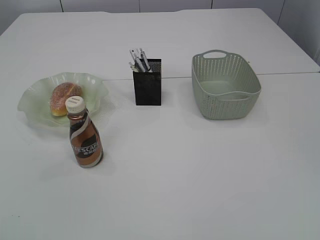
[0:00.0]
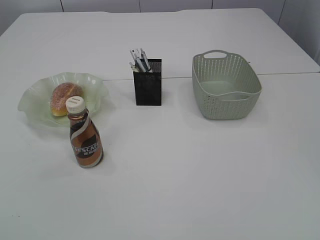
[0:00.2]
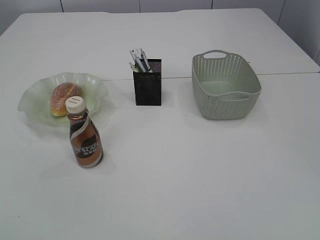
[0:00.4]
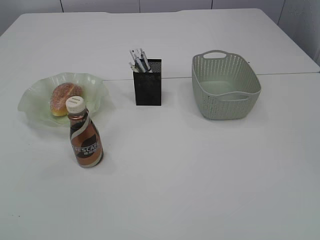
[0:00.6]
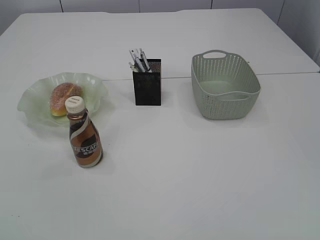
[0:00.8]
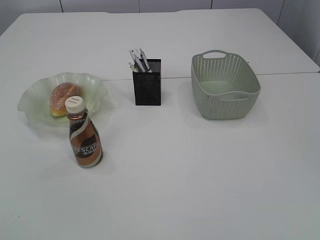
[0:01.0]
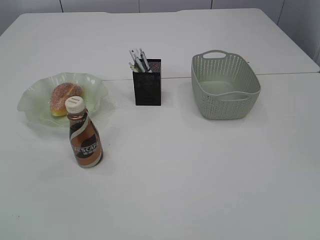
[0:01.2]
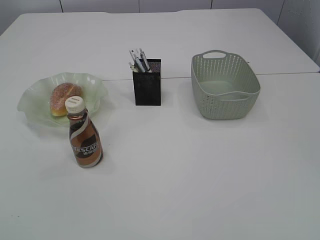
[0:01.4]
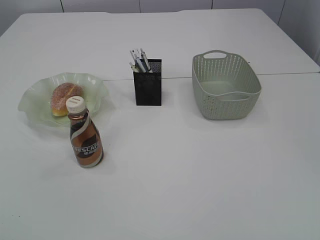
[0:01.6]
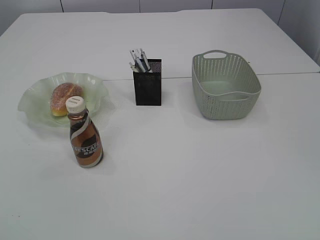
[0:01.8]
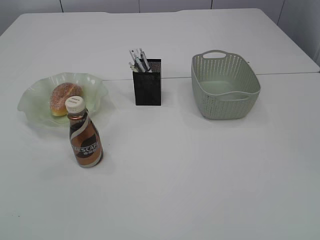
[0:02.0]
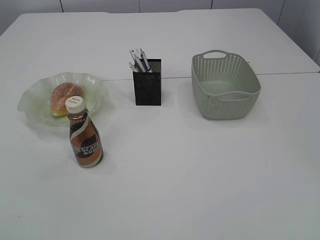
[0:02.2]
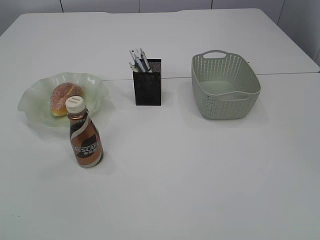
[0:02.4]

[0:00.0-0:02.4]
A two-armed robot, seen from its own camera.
0.0 to 1.2 s: Neither gripper changes place.

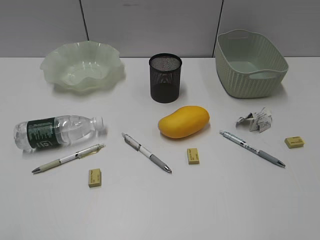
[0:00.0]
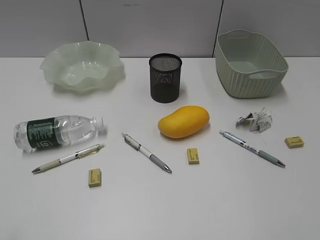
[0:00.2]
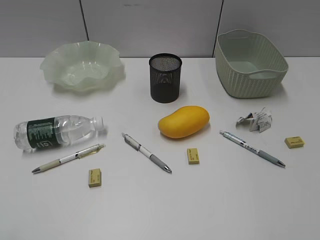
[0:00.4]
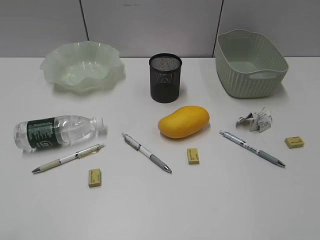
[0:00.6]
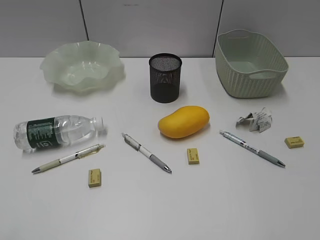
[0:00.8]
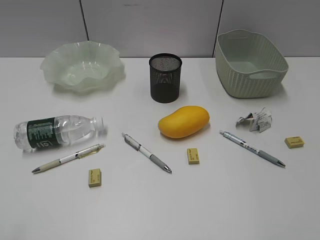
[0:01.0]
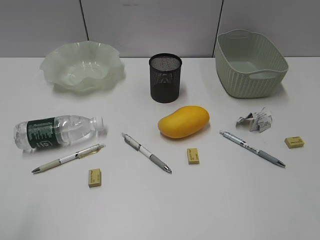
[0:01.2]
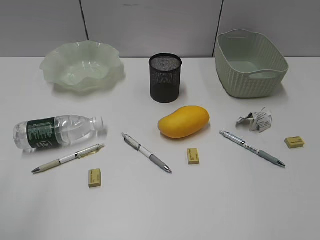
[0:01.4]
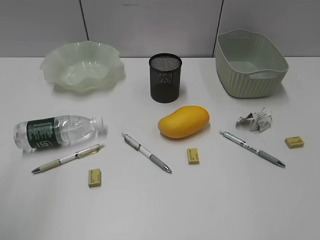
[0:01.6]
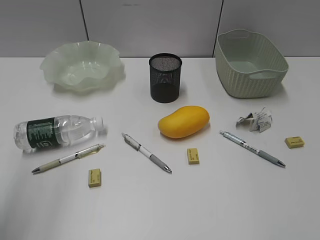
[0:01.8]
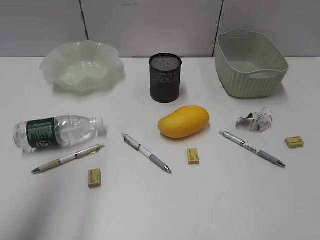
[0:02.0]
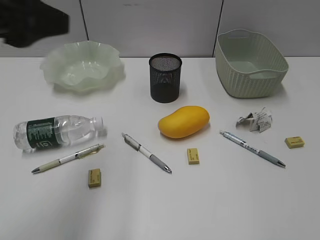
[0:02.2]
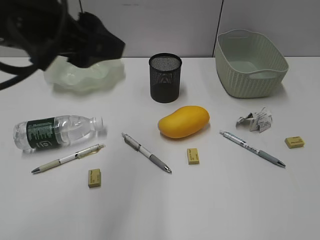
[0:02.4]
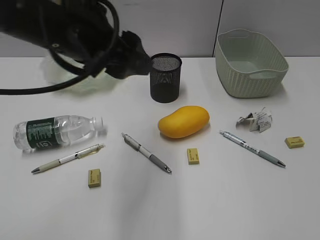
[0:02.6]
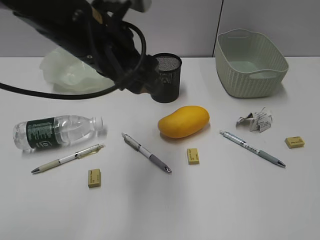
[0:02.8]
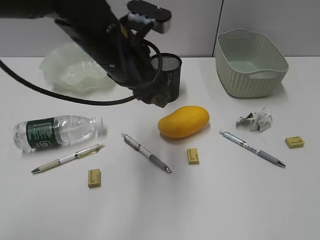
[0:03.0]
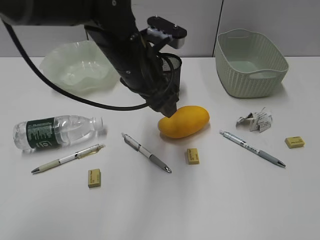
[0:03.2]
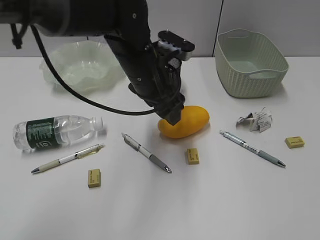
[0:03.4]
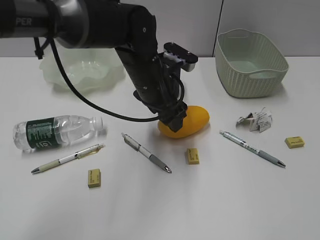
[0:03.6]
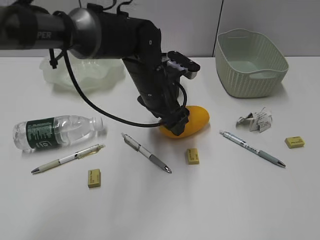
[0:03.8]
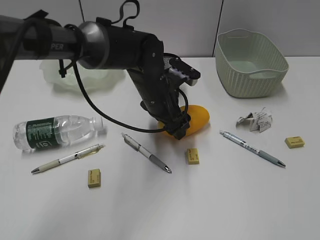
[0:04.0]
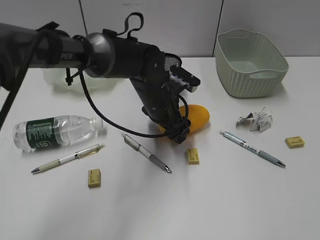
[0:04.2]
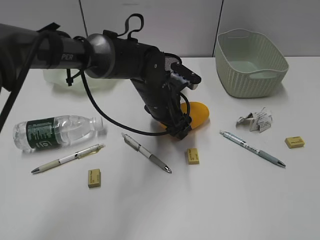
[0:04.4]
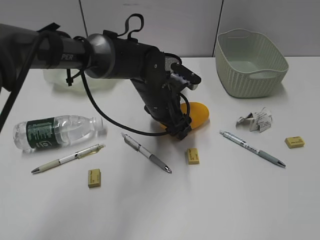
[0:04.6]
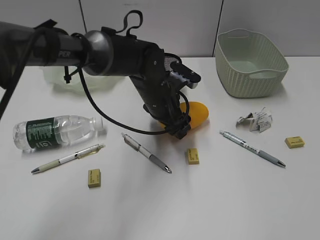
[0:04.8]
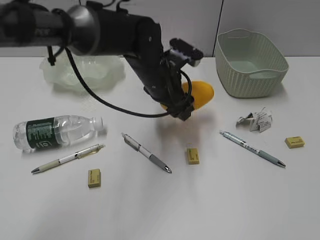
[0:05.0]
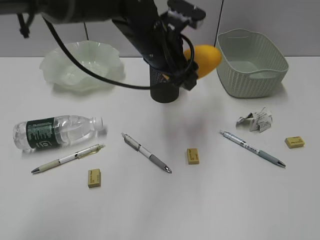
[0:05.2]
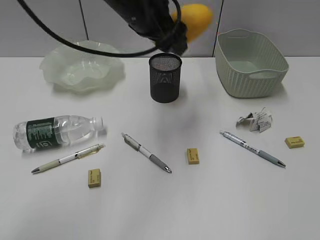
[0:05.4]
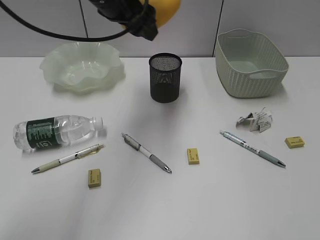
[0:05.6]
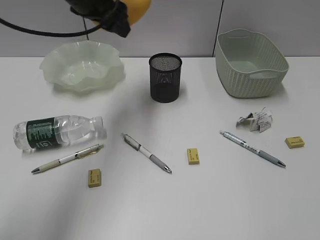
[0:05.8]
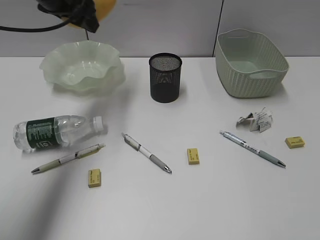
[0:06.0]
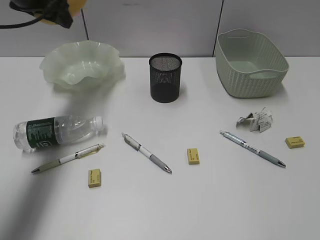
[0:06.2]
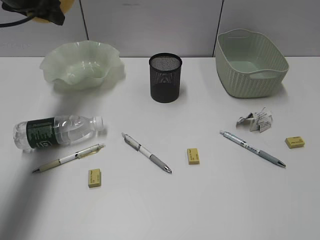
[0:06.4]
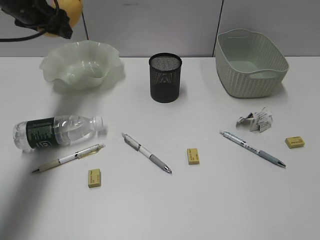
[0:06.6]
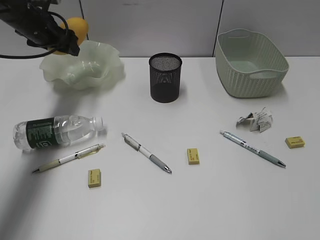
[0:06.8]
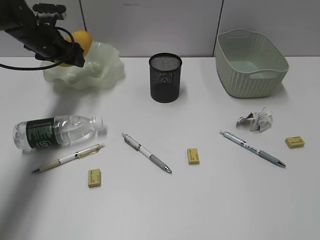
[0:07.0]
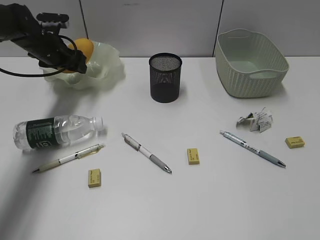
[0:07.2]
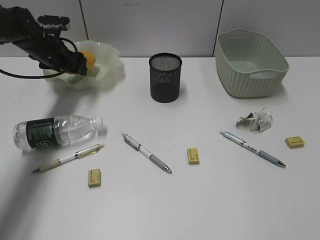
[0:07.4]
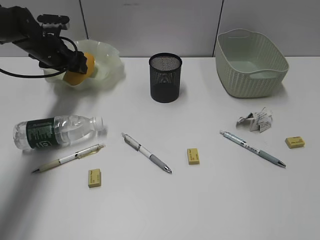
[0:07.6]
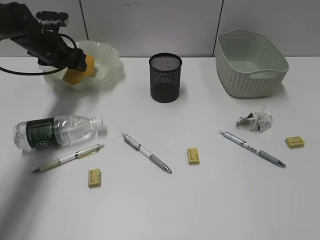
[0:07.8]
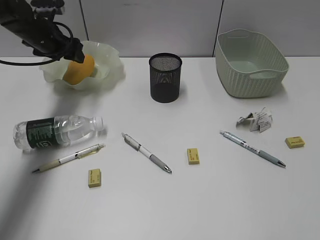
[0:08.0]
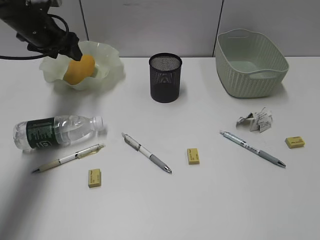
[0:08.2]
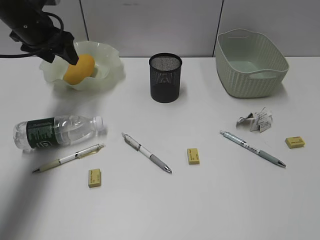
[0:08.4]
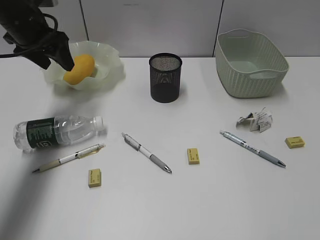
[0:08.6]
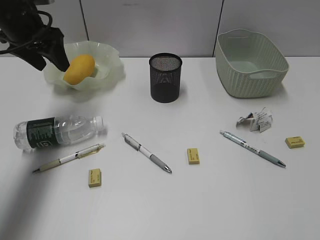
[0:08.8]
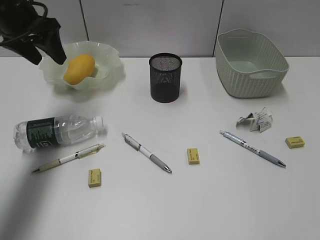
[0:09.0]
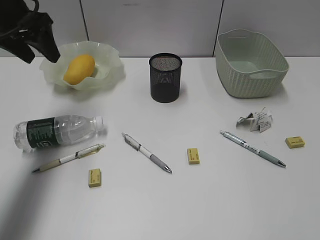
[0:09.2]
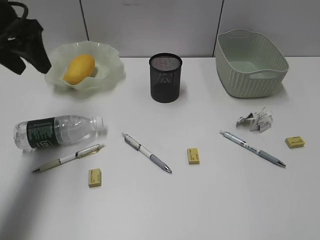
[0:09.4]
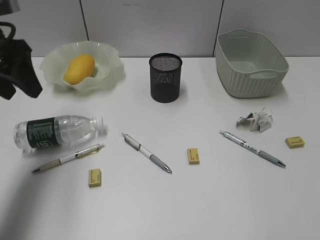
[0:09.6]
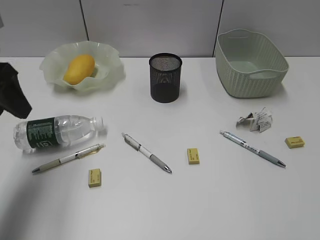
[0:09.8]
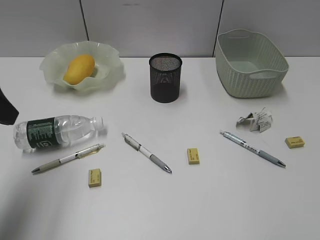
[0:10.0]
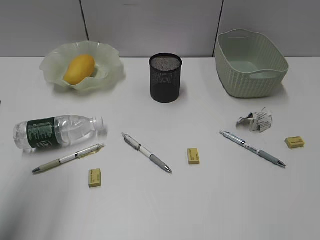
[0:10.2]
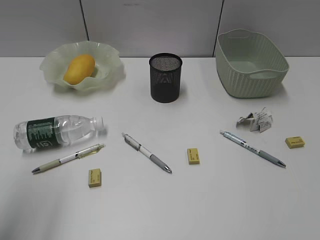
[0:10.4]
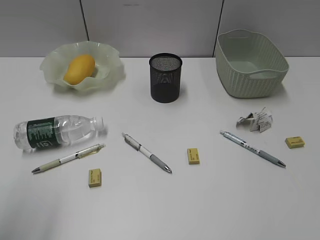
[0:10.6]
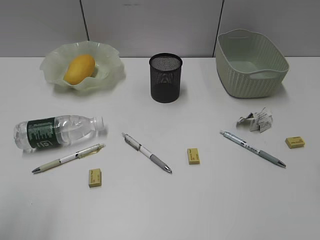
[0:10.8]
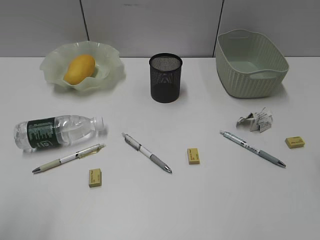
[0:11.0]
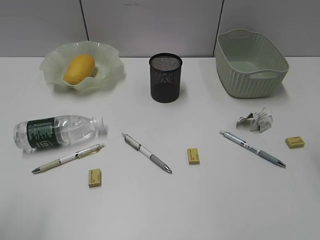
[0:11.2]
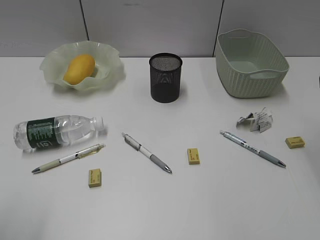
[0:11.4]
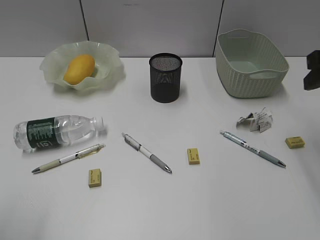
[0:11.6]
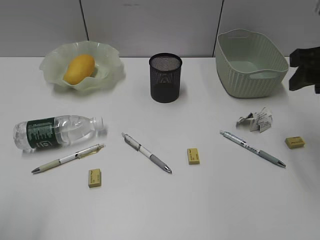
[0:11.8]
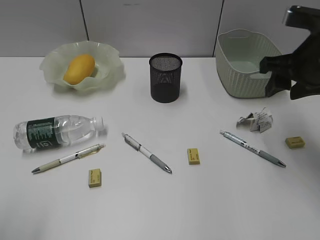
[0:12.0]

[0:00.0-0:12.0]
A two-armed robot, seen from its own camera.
Step, 2.2 to 4.6 s: Grasp the mango with left gripper.
Step, 4.8 to 8.0 s: Place the mango in the plate with left gripper.
1.6 to 3.0 s: The left gripper shifts roughly 35 cm to the right, forward and downward.
3.0 to 4.4 s: The left gripper moves downward, forward and to the right, about 15 cm.
4.4 to 6.0 s: The left gripper shifts approximately 25 cm to the left and upward.
6.0 to 7.6 s: The left gripper moves downward and forward, some 15 cm.
7.6 to 9.0 s: The left gripper moves upward and backward, some 15 cm.
9.0 to 10.4 s: The left gripper shifts some 25 cm backward.
10.4 to 12.0 s: The right gripper goes some 20 cm forward. Meanwhile the left gripper moves backward, some 10 cm.

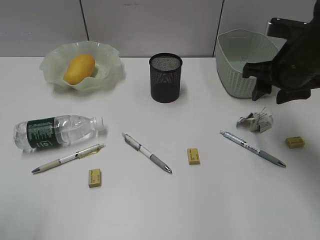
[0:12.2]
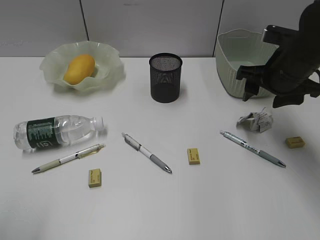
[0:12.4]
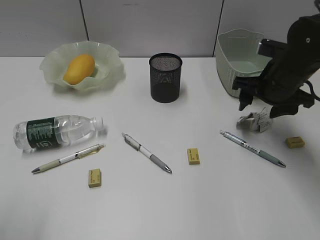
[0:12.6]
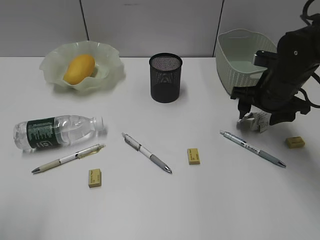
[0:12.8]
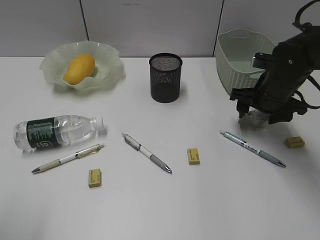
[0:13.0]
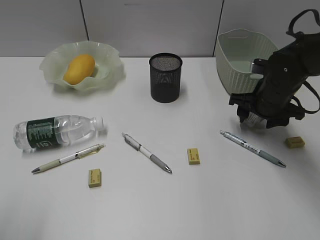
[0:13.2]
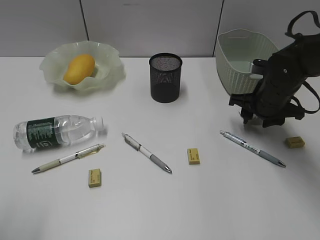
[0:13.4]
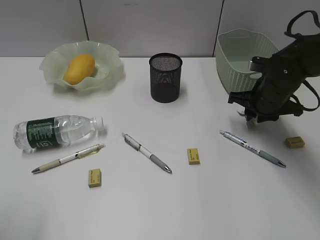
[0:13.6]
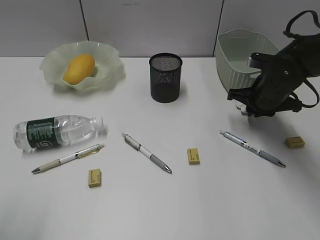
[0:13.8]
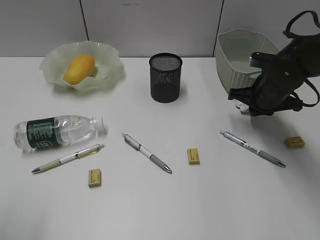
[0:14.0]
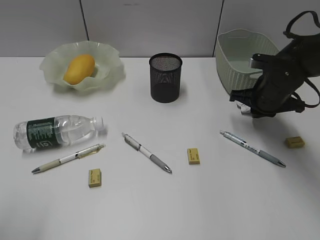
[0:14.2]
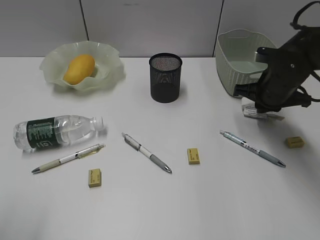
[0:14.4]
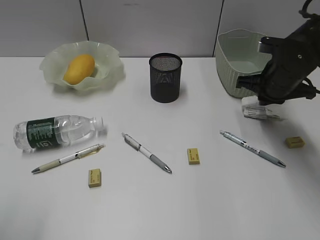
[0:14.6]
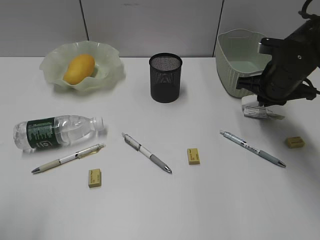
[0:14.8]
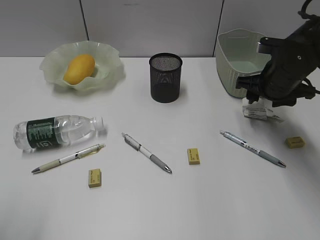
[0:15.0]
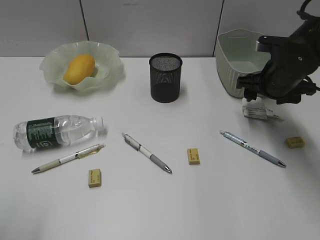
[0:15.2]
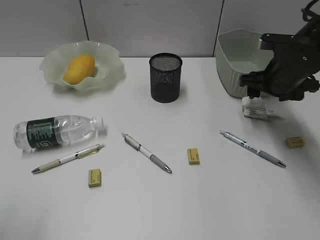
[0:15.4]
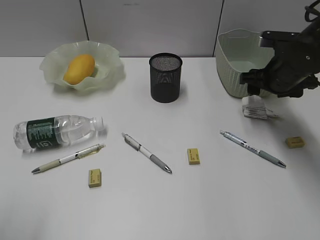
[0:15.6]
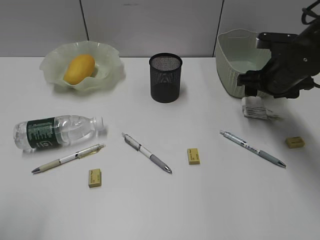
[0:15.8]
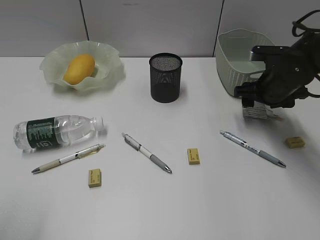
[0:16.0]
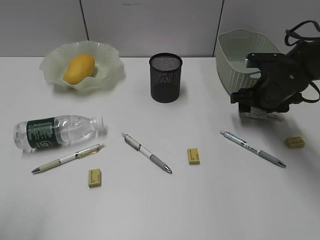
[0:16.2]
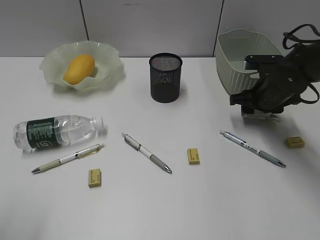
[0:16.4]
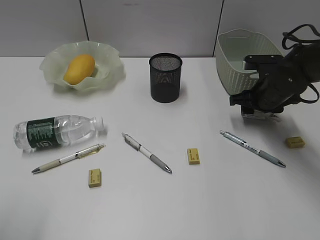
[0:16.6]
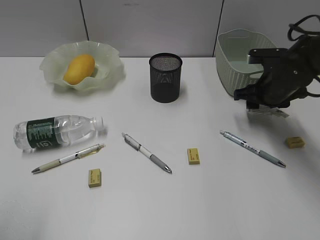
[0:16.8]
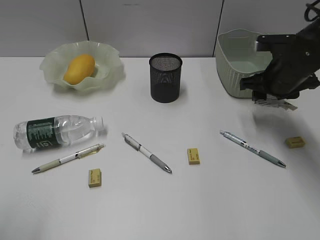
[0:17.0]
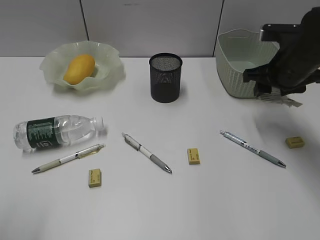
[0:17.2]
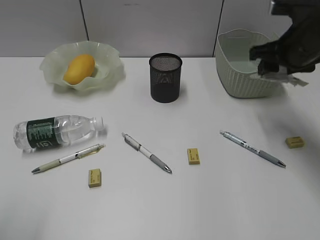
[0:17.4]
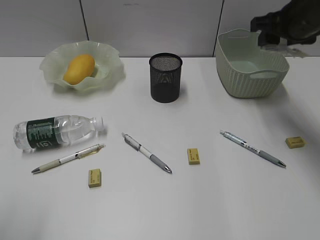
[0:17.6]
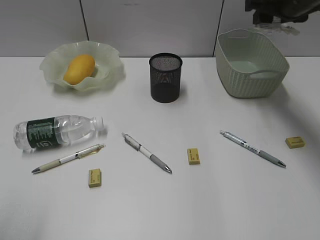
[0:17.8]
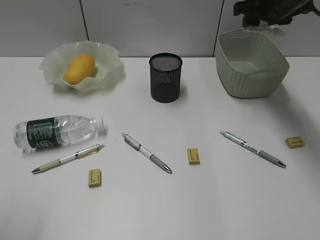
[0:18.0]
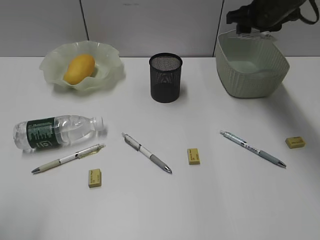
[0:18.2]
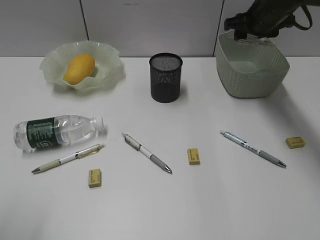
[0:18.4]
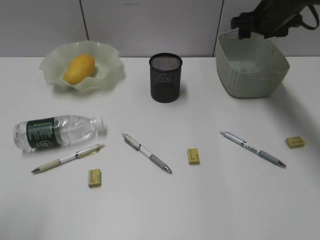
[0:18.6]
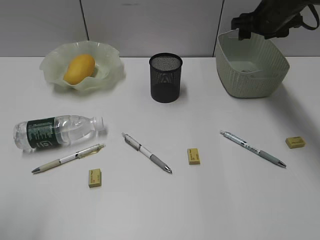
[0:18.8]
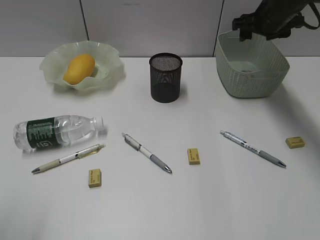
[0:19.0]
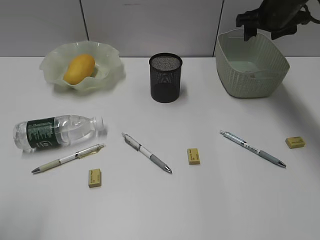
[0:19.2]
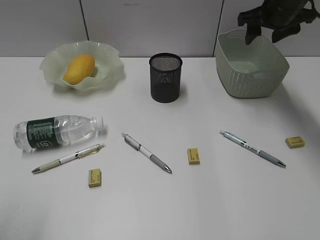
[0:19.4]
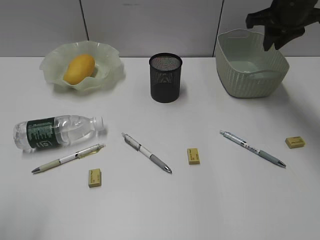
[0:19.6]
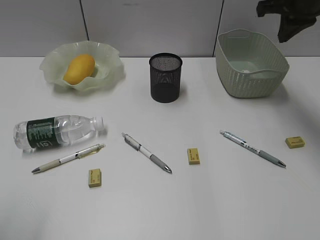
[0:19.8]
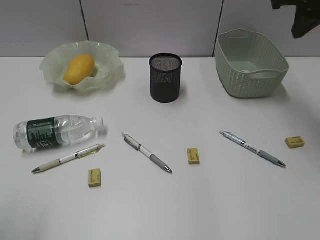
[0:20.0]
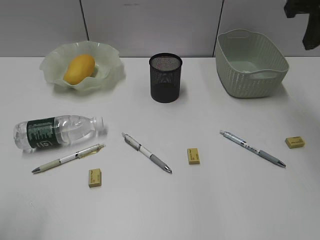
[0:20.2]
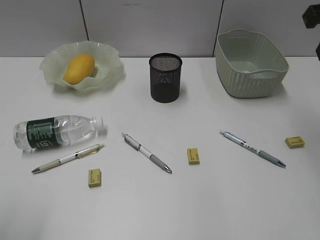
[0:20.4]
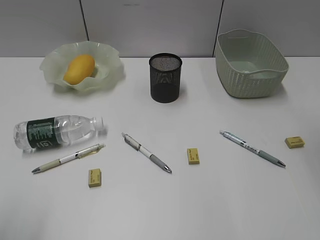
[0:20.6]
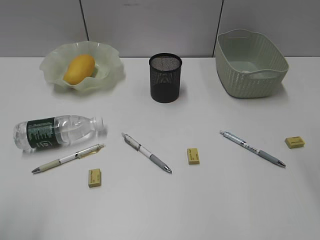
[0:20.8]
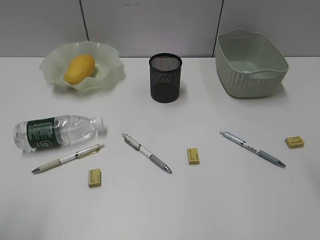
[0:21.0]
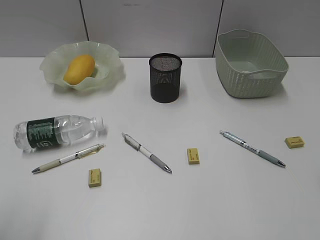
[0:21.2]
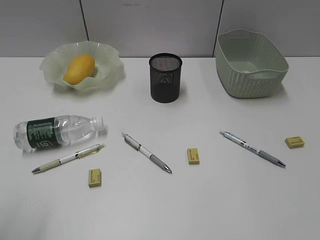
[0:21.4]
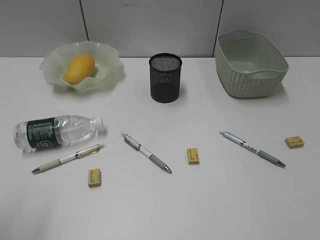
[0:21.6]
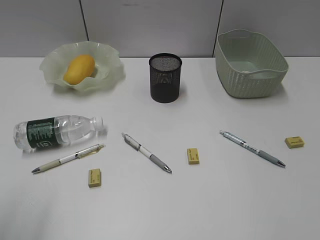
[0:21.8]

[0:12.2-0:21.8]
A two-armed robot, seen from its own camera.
Step, 12.2 to 16.6 s: Grasp the waste paper with right gripper.
Step, 16.8 to 18.6 s: Place the waste paper in the basket with right gripper.
12.2 to 13.8 s: The right gripper heads downward, covering about 10 cm, and closes.
13.8 to 15.4 s: The right gripper opens up.
15.4 to 17.0 s: The right gripper closes up.
17.0 to 18.6 s: The right gripper moves forward and upward, approximately 15 cm.
18.6 to 20.2 s: The right gripper heads backward and upward, covering about 20 cm, and closes its fingers.
20.2 to 21.8 s: The right gripper travels backward by some 30 cm, and opens its fingers.
